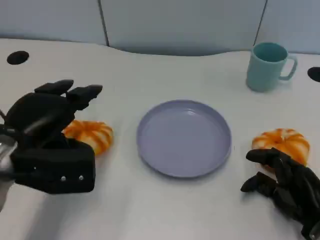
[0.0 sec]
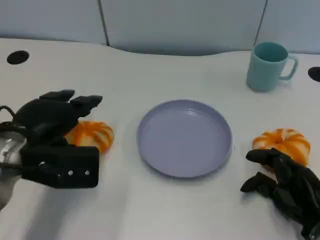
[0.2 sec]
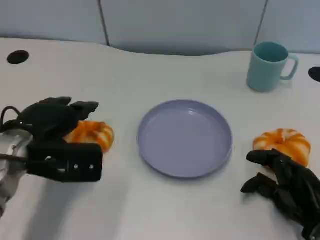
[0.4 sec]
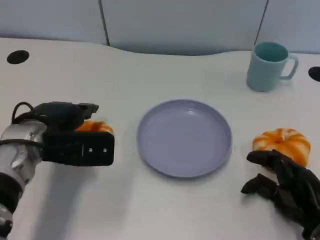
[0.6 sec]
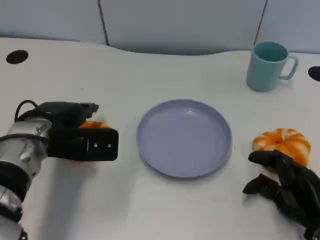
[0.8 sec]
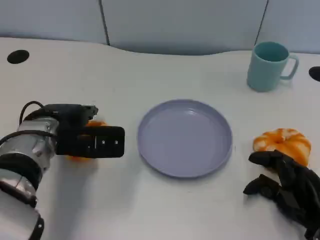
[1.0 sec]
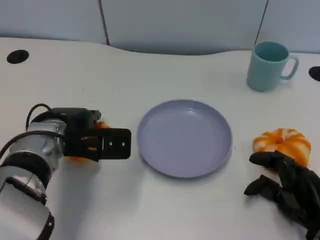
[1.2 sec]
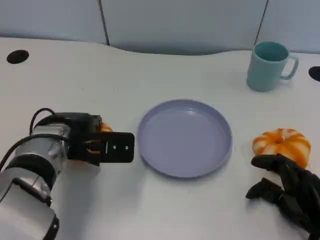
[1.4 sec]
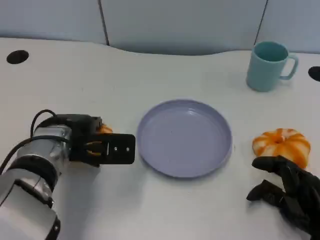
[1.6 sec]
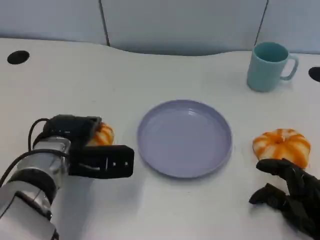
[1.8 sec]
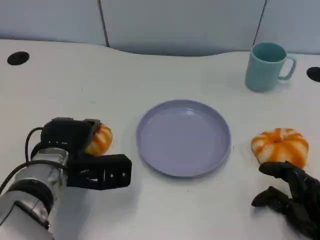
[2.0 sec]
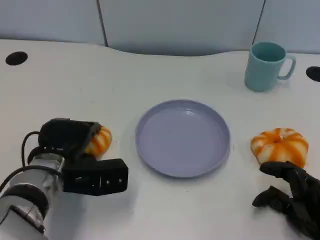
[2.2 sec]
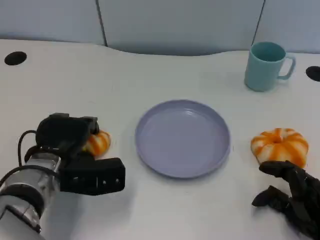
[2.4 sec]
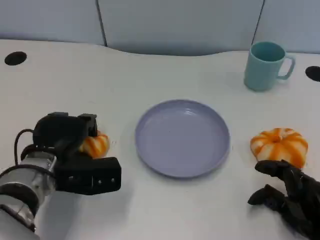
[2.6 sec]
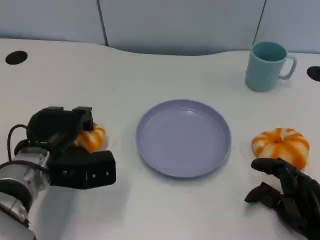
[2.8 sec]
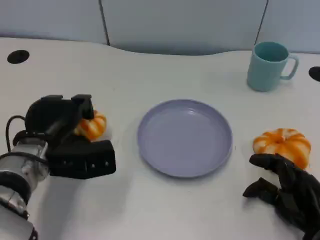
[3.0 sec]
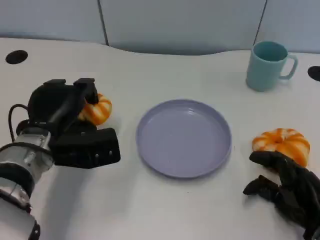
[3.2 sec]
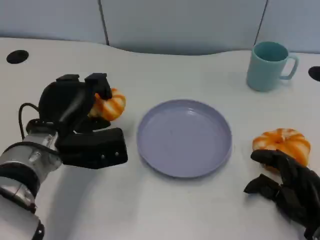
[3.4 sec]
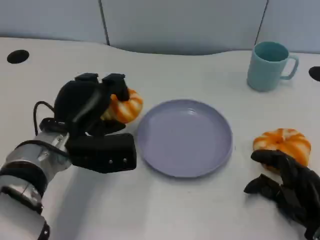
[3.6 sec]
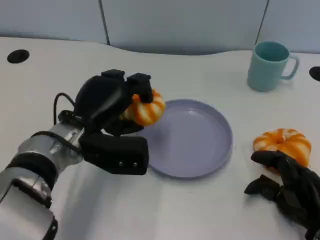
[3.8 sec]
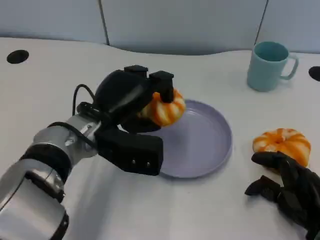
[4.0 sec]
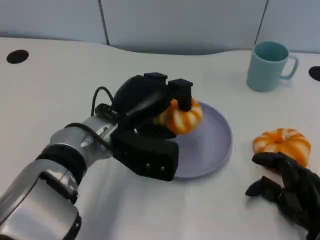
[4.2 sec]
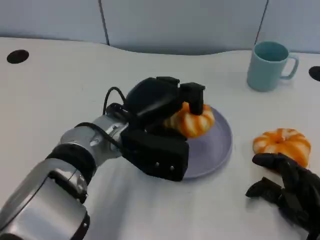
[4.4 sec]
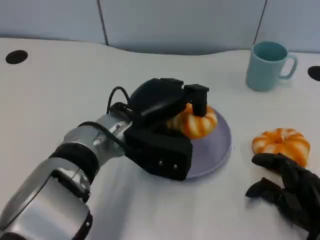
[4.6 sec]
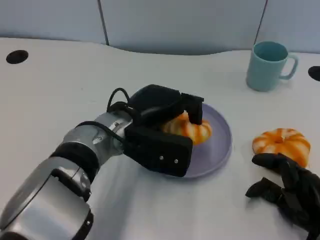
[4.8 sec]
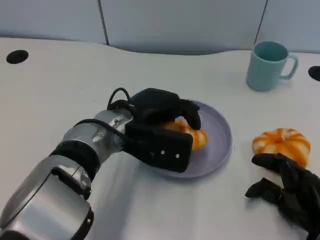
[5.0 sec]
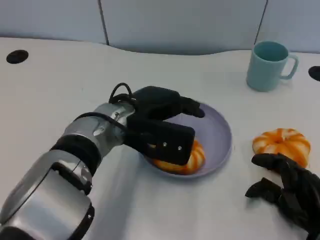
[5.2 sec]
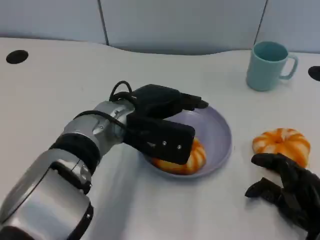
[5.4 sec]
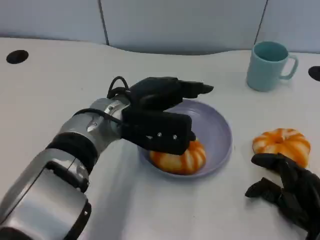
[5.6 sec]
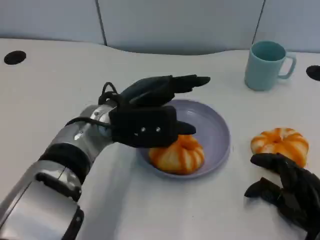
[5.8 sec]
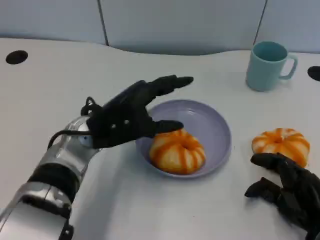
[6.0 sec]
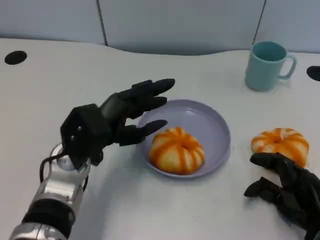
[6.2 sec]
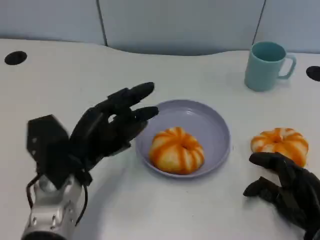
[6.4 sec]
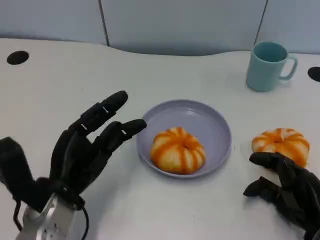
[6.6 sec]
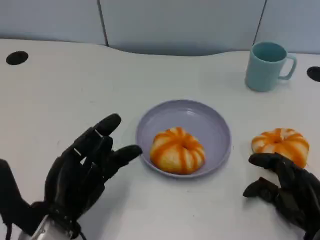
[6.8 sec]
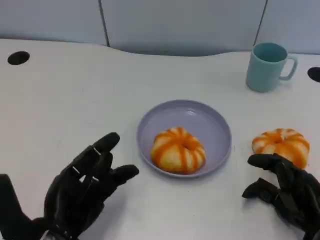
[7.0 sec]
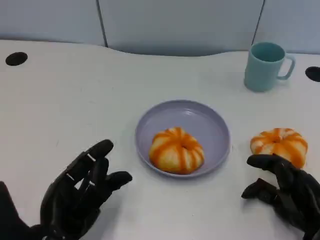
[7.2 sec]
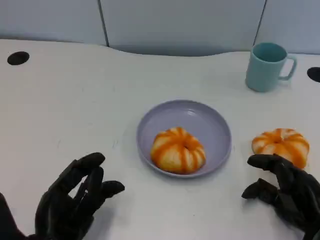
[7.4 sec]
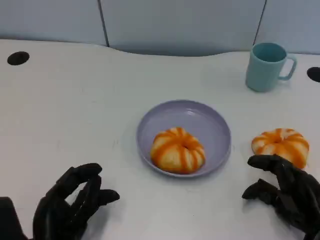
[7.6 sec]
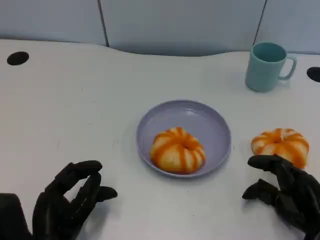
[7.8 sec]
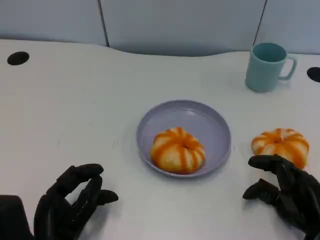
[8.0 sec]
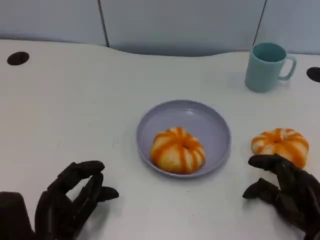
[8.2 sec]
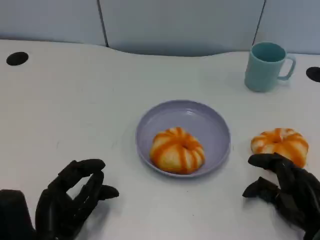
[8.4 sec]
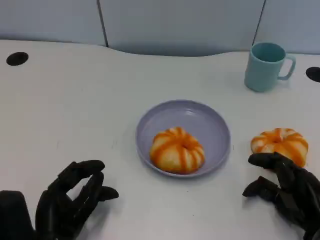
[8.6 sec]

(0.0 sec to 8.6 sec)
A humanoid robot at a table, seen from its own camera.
Task of the whole recording: Grasp the bread from the table and place it into the plate.
0.0 sec - 1.4 sec: The left hand goes roughly 10 cm to the right and forward.
2.8 sec - 4.4 sec: The left hand goes roughly 15 cm to the right and upward.
5.8 sec - 7.2 sec: The left hand travels backward, to the left and downward by approximately 20 cm.
7.2 sec - 8.6 sec: The hands make only small movements.

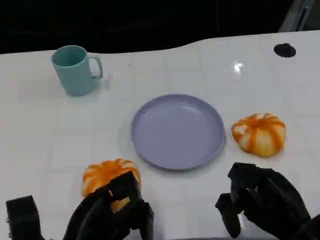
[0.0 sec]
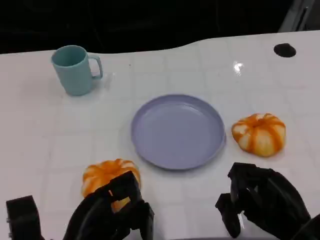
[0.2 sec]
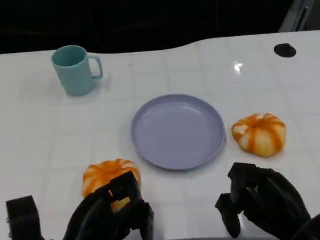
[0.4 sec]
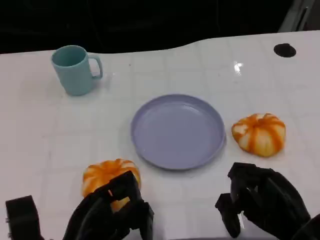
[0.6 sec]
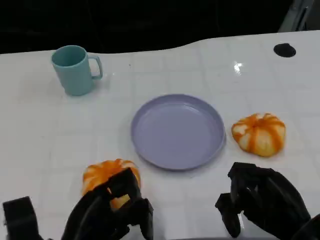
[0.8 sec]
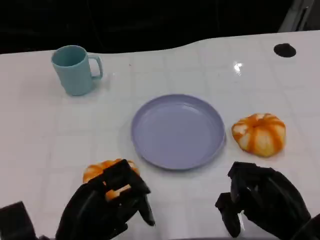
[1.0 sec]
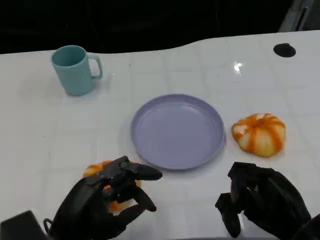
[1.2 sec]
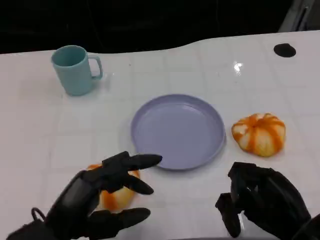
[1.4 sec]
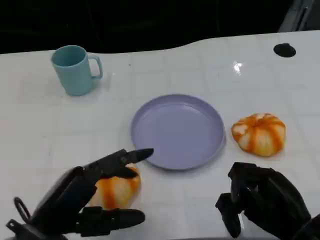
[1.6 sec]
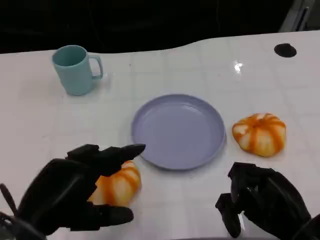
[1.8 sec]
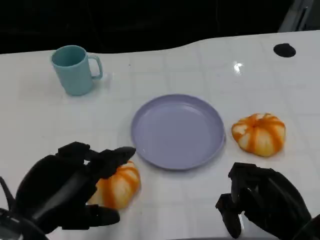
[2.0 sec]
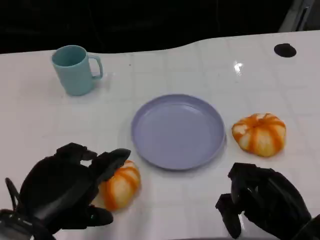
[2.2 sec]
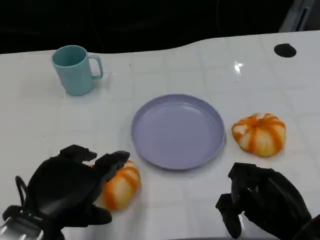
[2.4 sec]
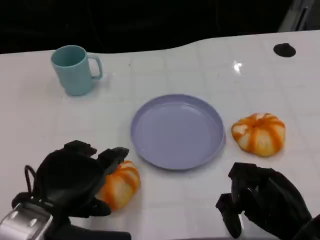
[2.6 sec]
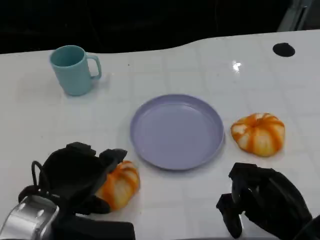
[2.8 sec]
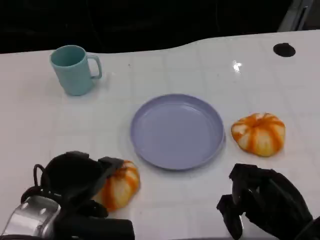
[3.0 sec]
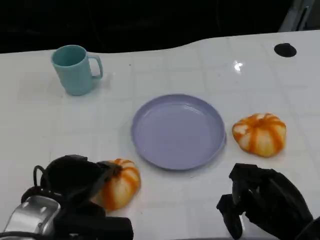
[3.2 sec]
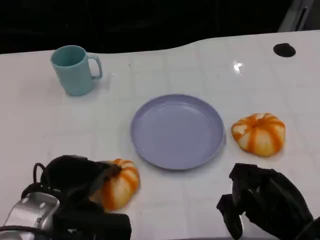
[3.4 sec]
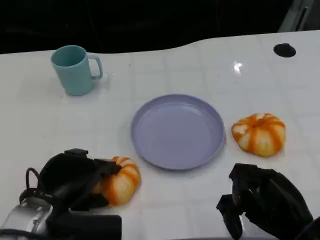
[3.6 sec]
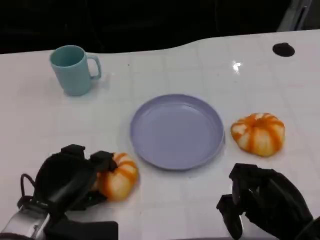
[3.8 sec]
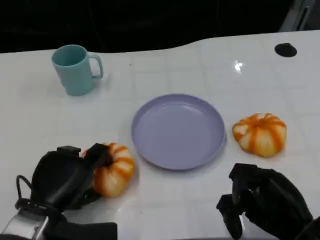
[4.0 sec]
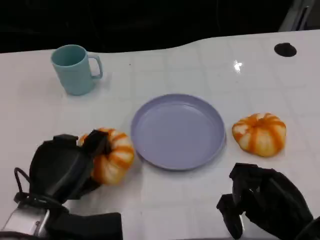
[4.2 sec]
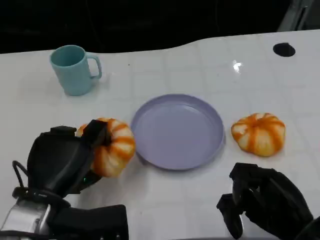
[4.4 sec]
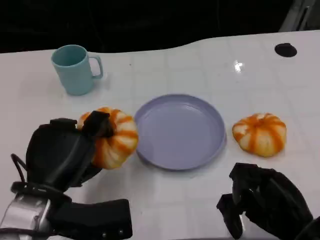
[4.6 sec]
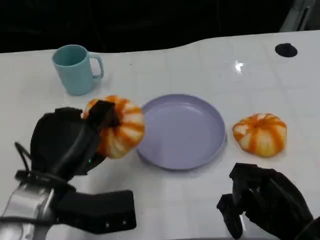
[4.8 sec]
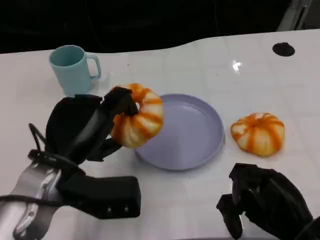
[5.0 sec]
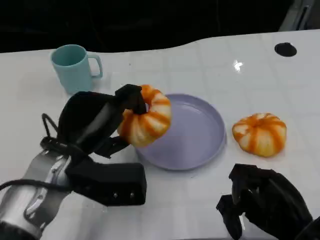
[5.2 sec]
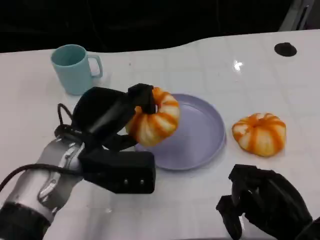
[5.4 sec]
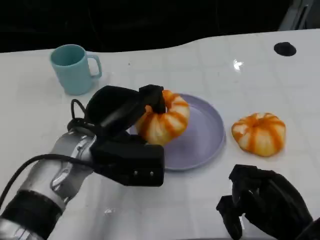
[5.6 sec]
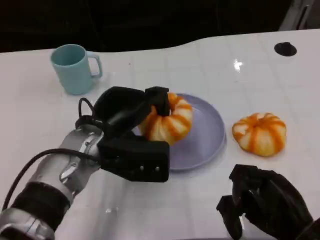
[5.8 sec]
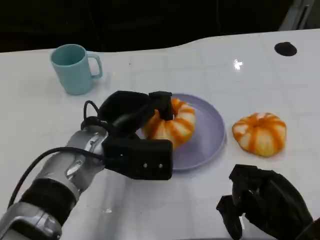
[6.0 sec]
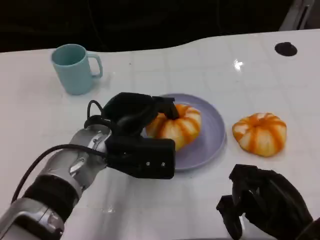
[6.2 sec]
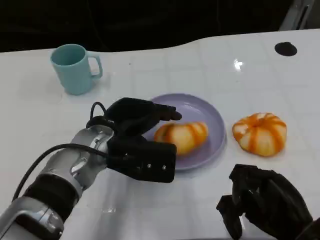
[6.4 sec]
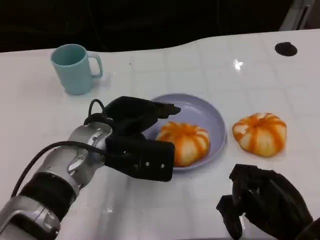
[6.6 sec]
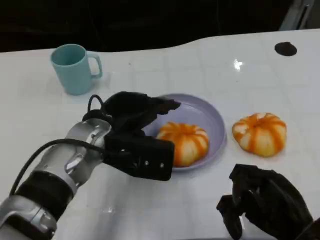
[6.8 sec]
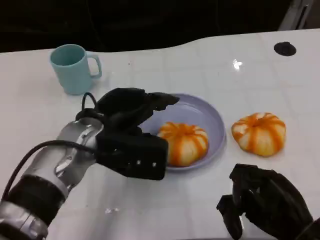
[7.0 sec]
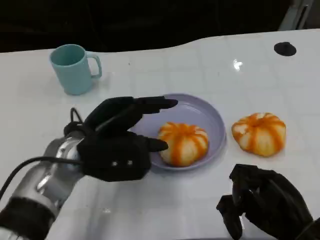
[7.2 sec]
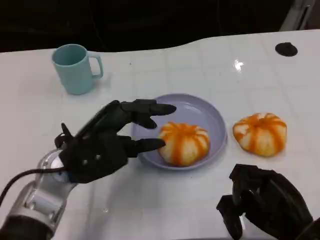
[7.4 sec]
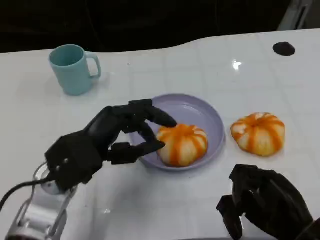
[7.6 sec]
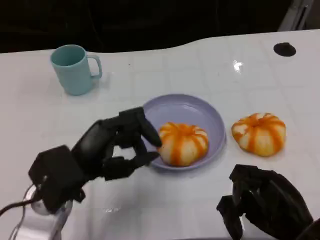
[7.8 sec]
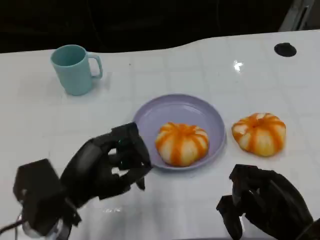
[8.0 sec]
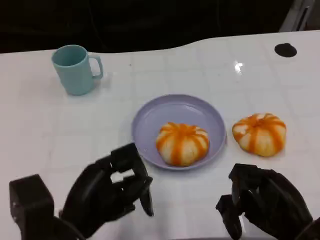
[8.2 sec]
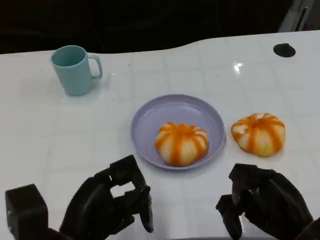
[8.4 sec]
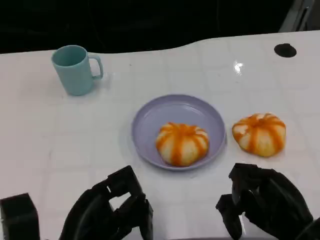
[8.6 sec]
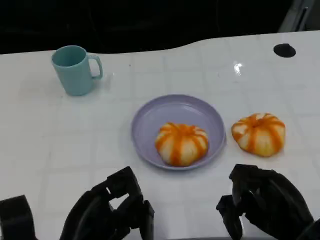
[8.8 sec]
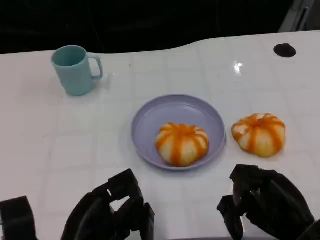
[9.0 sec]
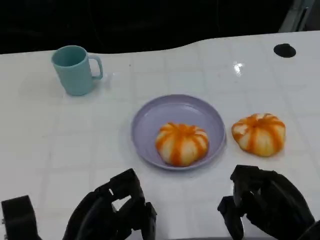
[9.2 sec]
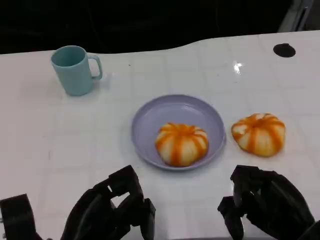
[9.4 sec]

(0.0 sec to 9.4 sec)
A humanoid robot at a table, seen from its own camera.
Task of the whole recording: Grasp the bread from the table and place it into the plate.
0.0 sec - 1.6 sec: The left hand moves upward, roughly 5 cm.
1.6 sec - 3.2 sec: The left hand travels forward by approximately 5 cm.
4.8 sec - 6.2 sec: The left hand moves forward and to the right, approximately 10 cm.
6.2 sec - 7.8 sec: The left hand is displaced backward and to the left by roughly 10 cm.
7.8 sec - 9.4 sec: The left hand travels backward by roughly 5 cm.
